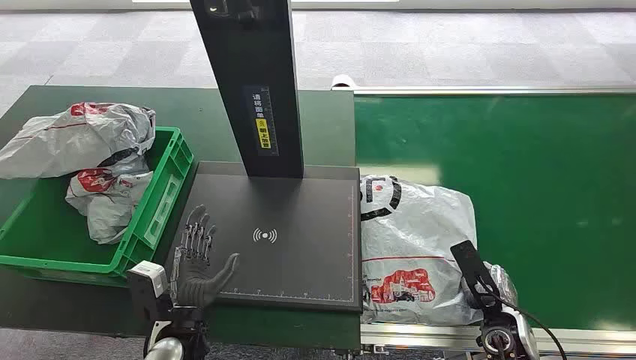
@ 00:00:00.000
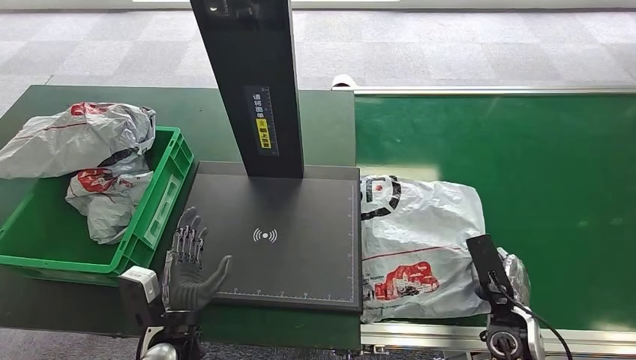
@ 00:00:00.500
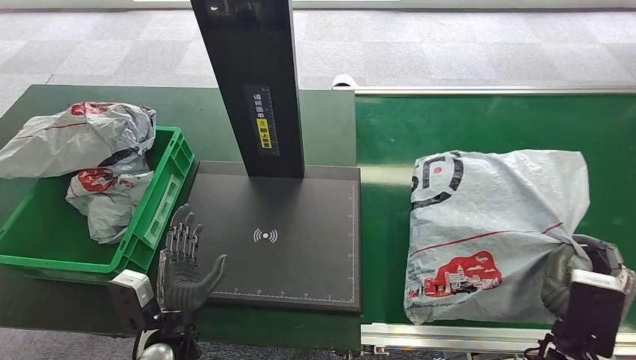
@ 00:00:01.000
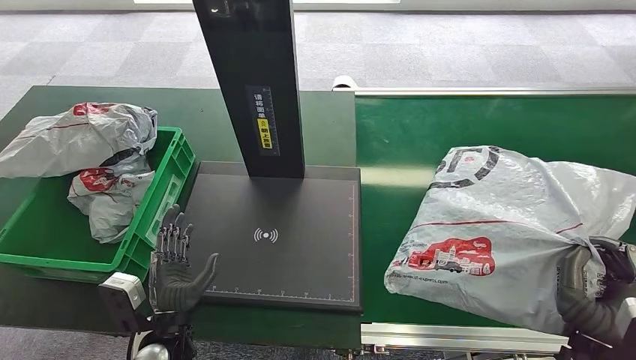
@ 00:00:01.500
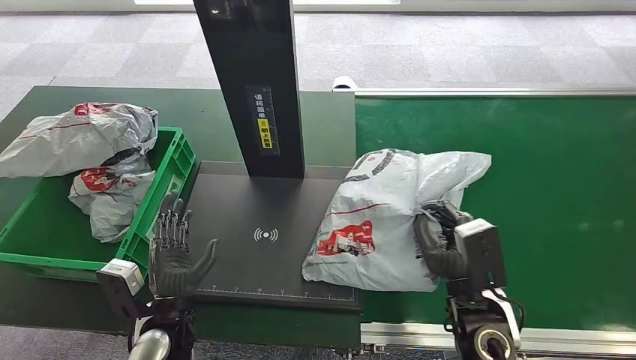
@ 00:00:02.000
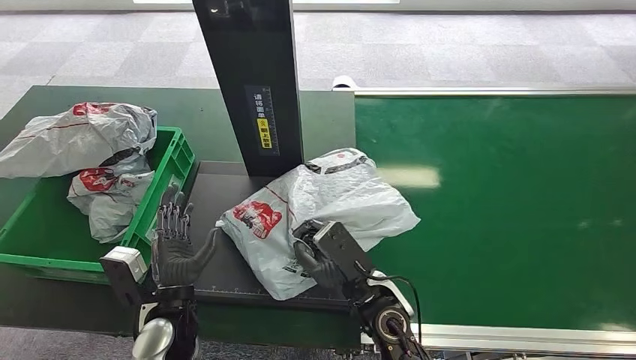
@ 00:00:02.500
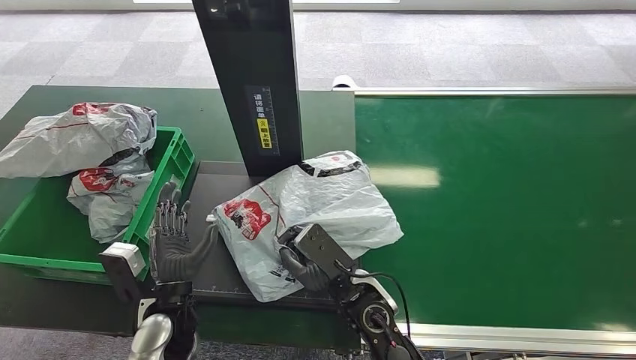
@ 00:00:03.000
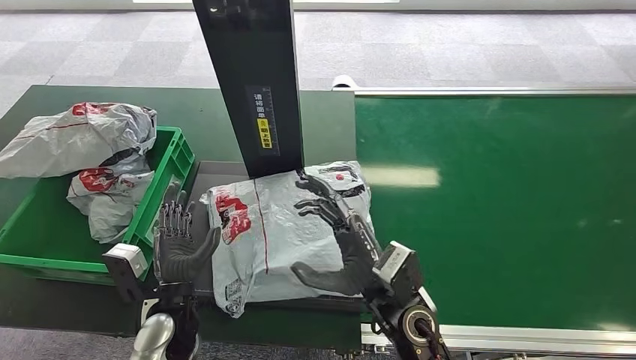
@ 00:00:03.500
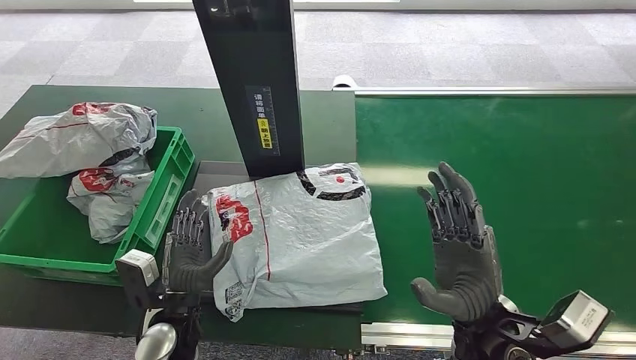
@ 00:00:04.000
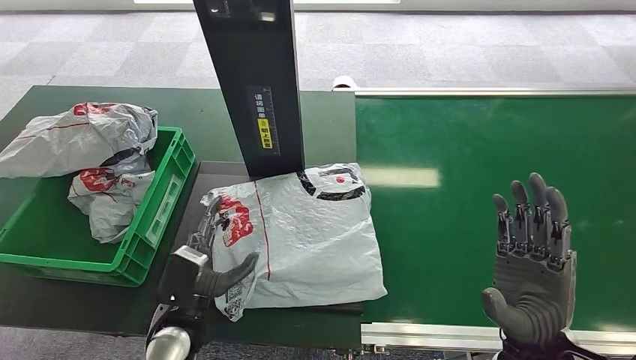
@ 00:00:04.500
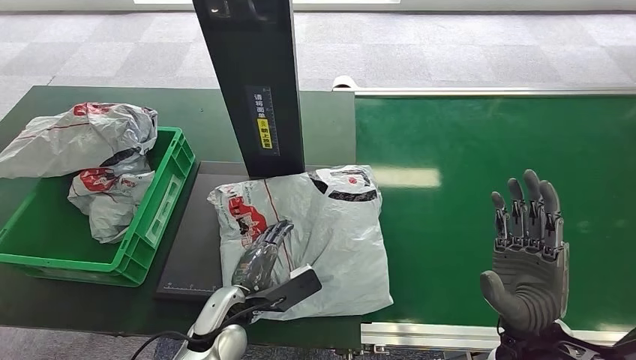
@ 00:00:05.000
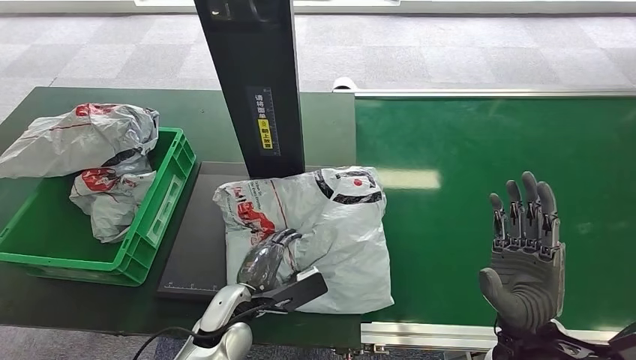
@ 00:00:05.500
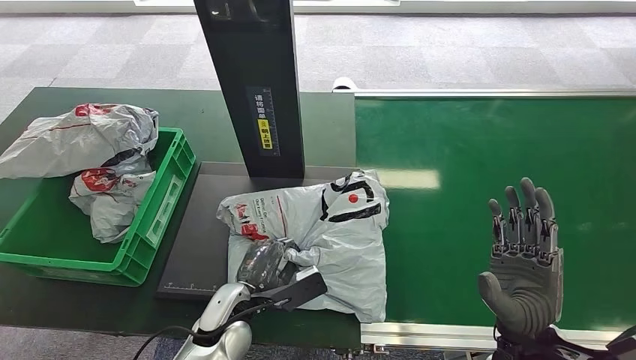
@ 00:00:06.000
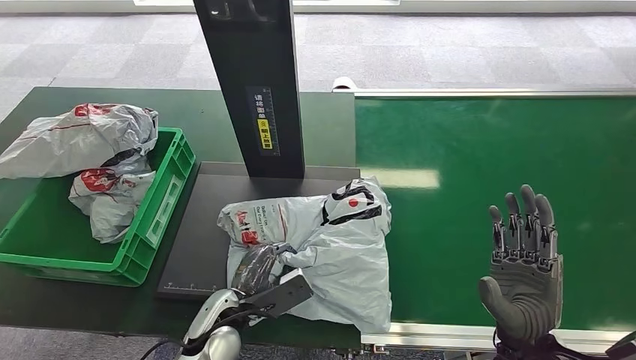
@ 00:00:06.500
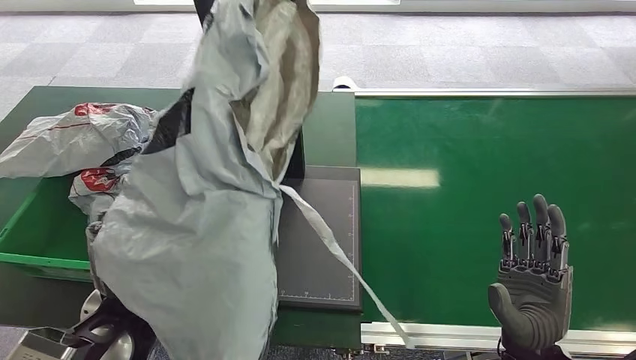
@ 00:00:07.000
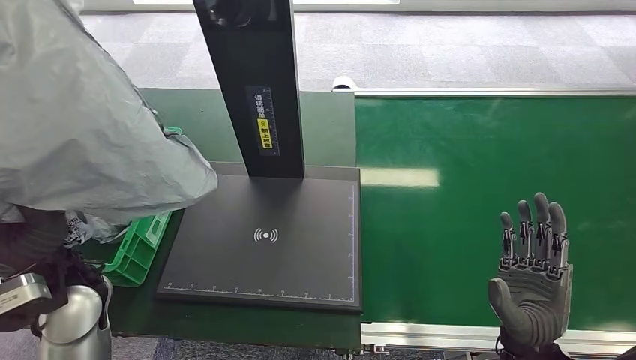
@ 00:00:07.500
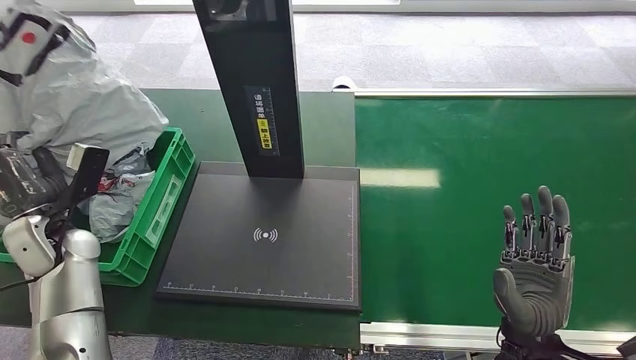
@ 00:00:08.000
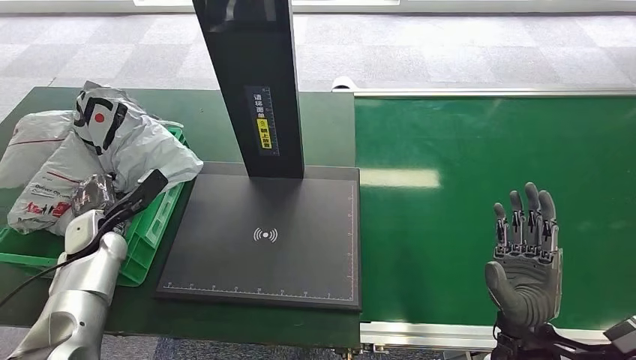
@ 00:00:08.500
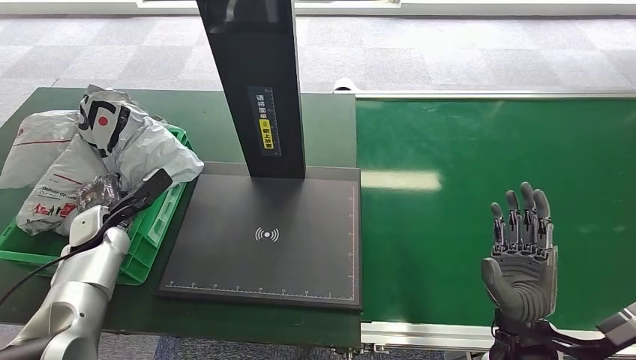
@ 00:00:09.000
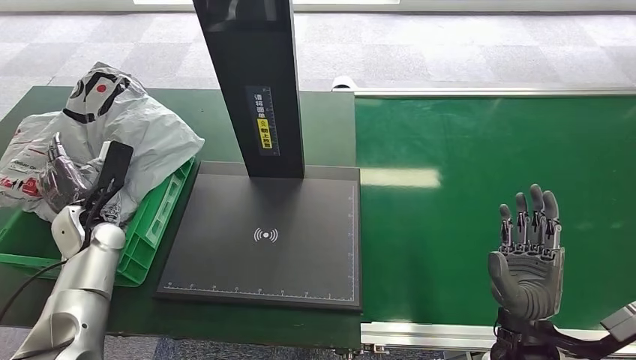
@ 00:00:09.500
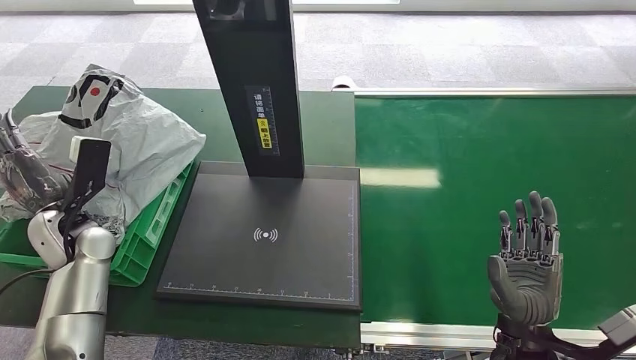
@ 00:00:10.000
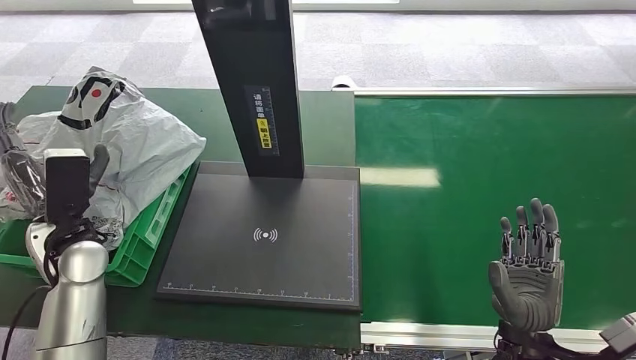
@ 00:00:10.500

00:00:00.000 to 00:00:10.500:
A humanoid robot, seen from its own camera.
Step, 00:00:00.000 to 00:00:01.500: Pick up the package from the conveyor belt.
Step, 00:00:02.000 to 00:00:03.500: Place the package onto the inbound machine.
Step, 00:00:04.000 to 00:00:06.500: Pick up the package from the inbound machine.
Step, 00:00:07.000 to 00:00:10.500: Place the package into the parcel locker.
00:00:08.500 to 00:00:10.500: The left hand heads upward, covering some 10 cm.

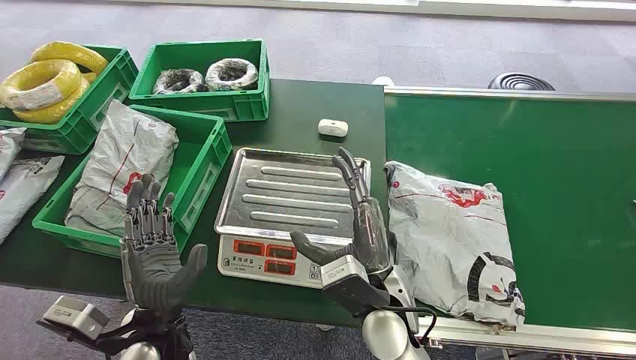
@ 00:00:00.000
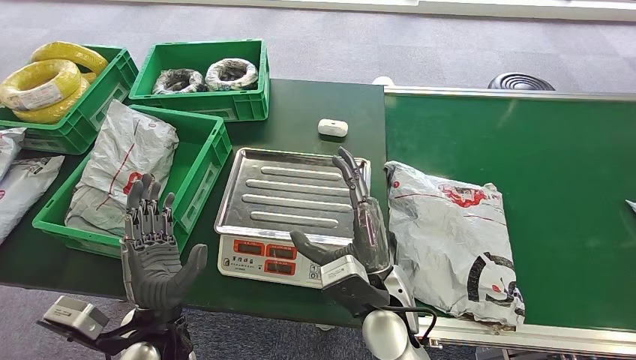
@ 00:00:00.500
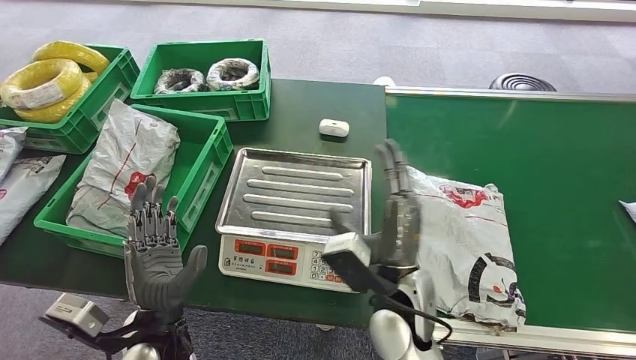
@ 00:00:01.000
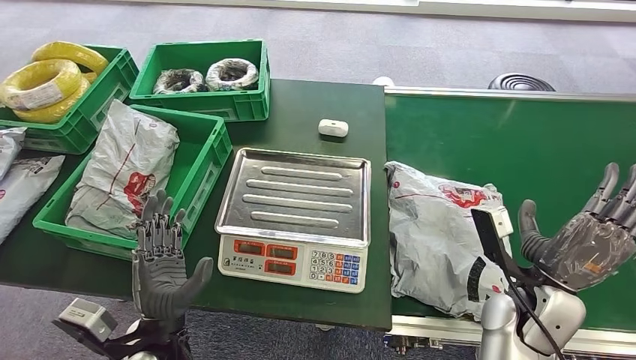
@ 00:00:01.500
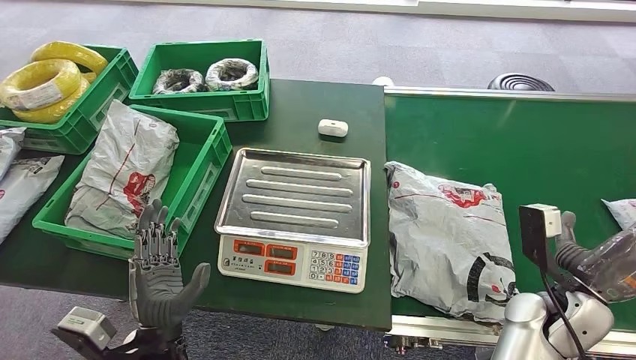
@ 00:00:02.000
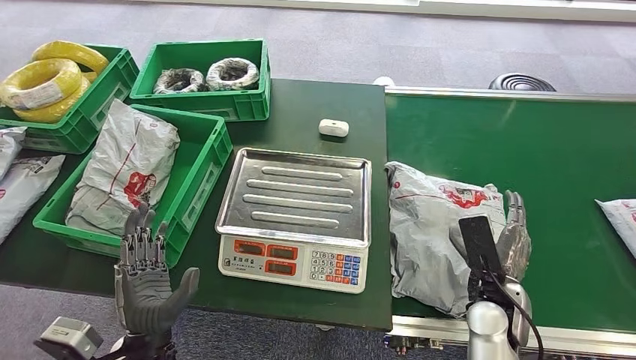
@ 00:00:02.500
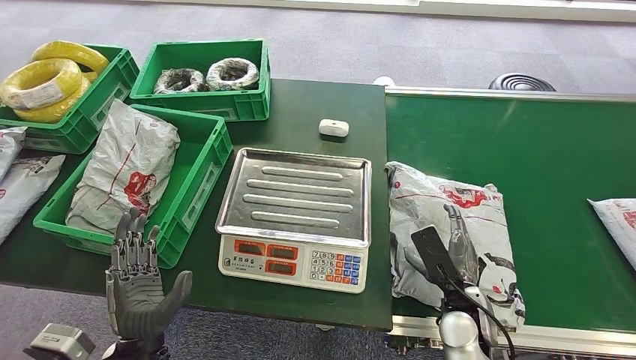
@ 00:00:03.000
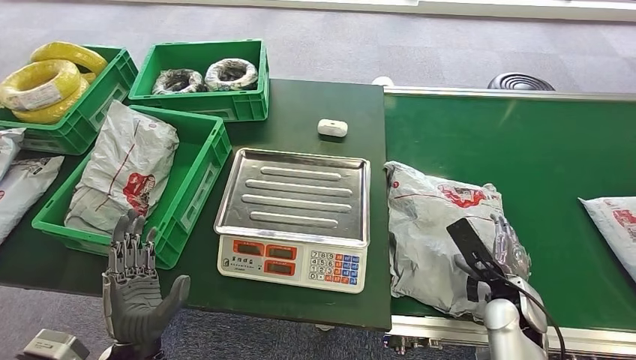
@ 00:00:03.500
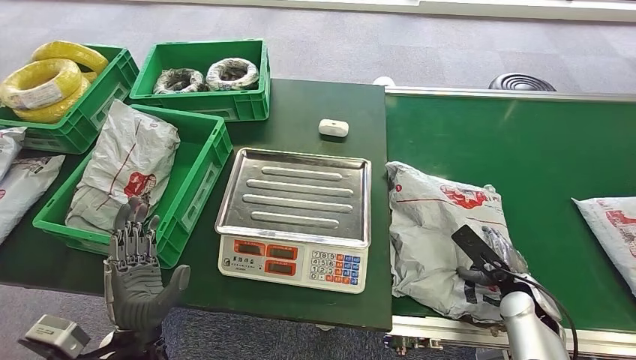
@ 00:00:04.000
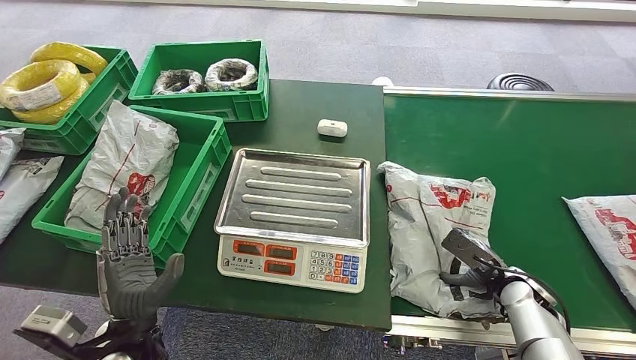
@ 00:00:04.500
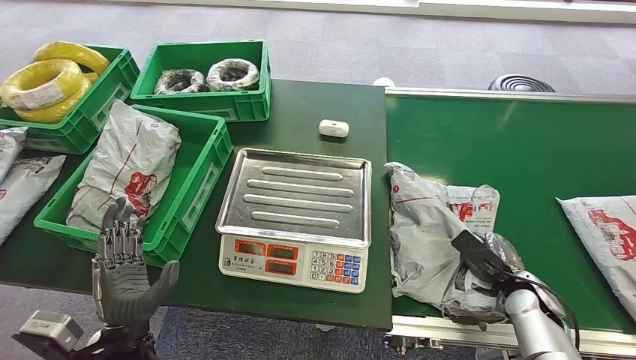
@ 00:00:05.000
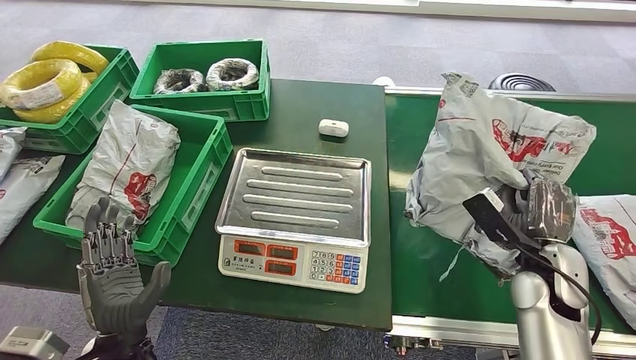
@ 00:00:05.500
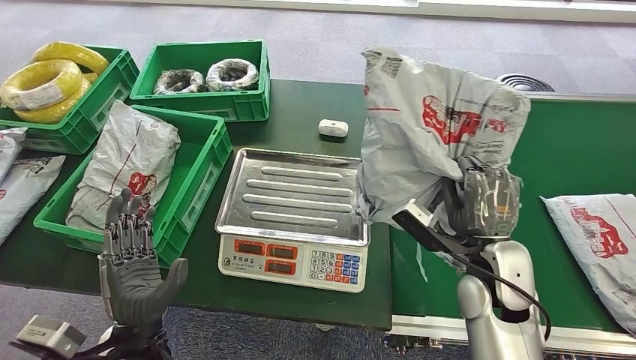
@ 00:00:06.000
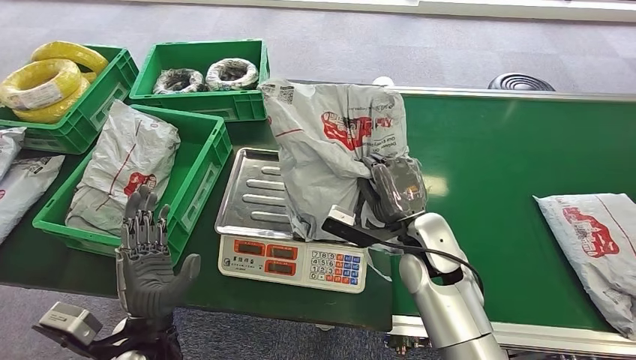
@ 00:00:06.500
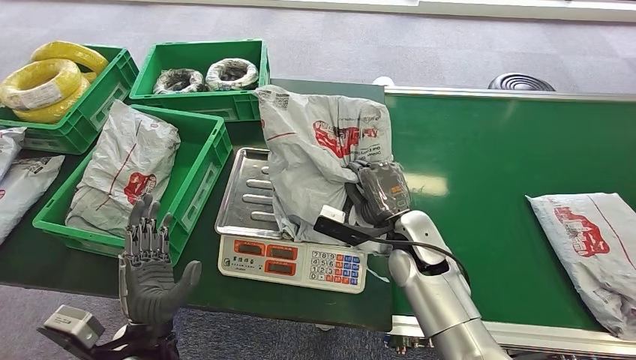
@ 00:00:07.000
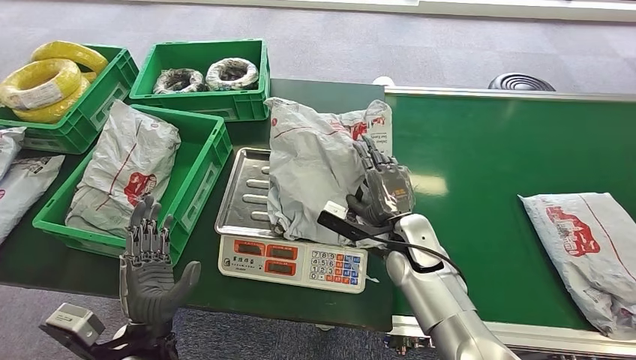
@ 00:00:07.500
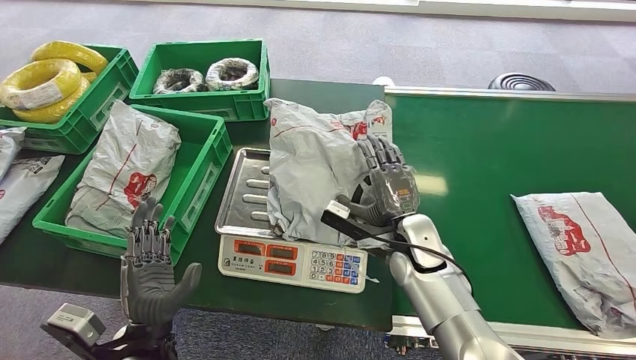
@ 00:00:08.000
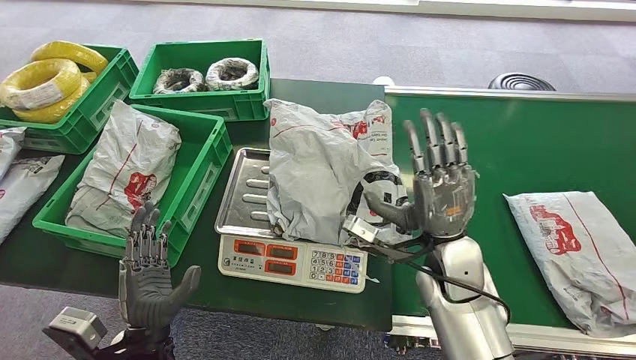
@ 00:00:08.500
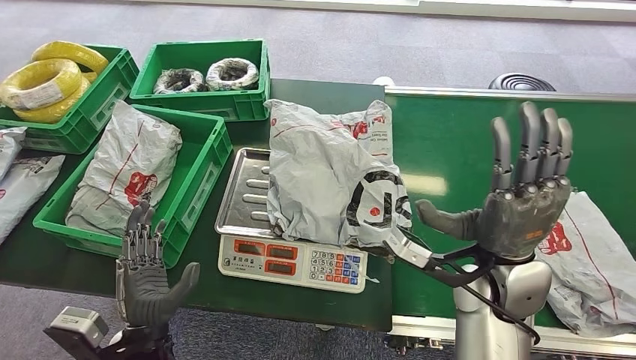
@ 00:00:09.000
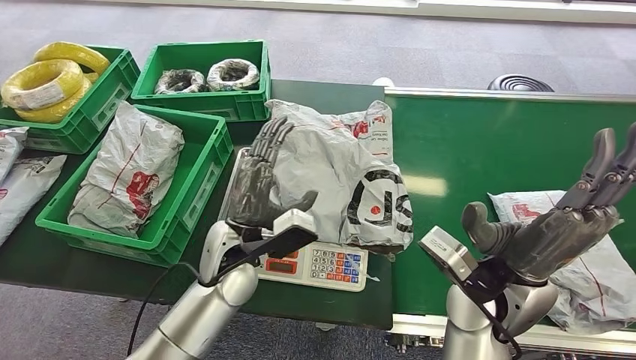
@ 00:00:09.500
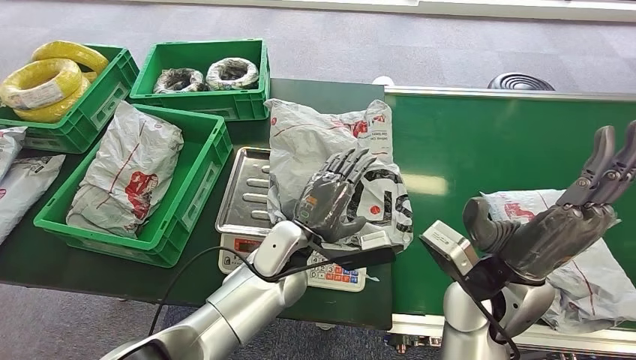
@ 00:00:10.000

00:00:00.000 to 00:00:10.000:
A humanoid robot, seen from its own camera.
Step, 00:00:00.000 to 00:00:05.500: Pick up the package from the conveyor belt.
Step, 00:00:06.000 to 00:00:08.000: Place the package onto the inbound machine.
00:00:02.000 to 00:00:04.000: The right hand travels downward by roughly 10 cm, and reaches approximately 10 cm to the left, then returns.
